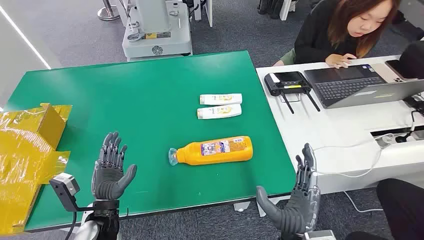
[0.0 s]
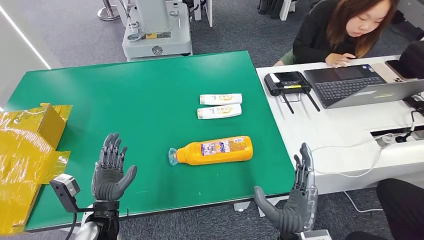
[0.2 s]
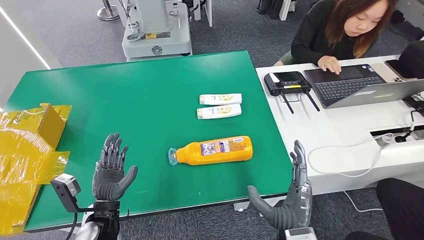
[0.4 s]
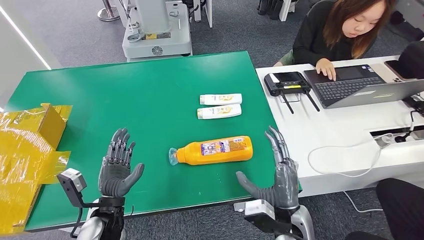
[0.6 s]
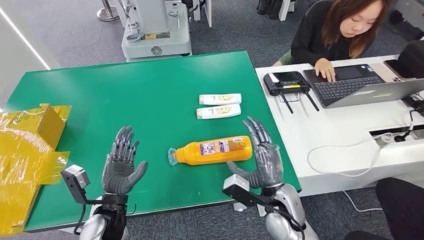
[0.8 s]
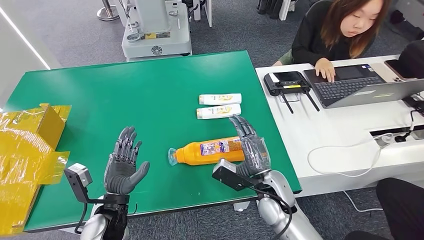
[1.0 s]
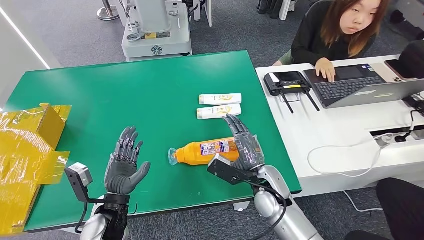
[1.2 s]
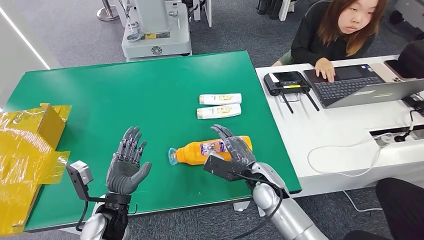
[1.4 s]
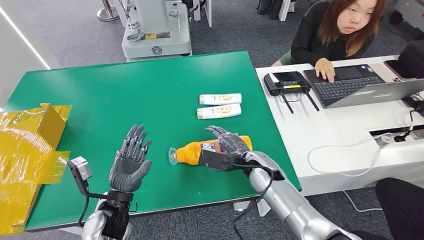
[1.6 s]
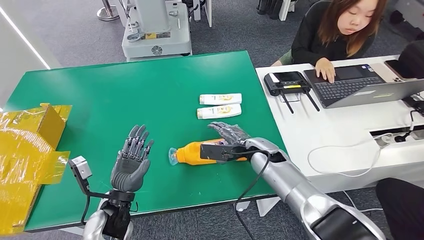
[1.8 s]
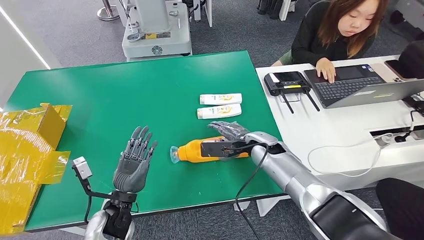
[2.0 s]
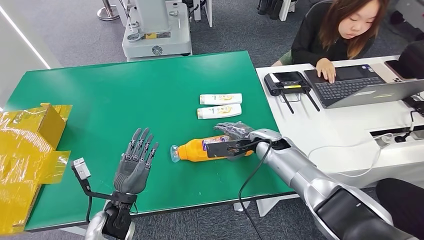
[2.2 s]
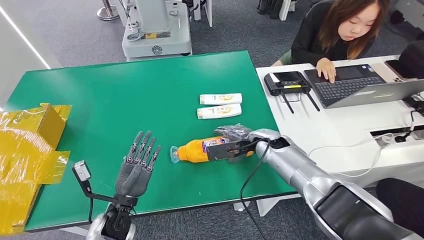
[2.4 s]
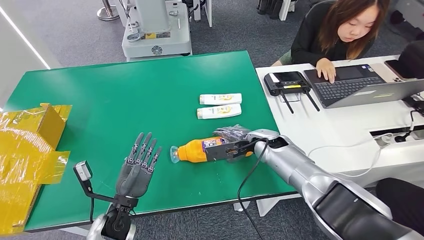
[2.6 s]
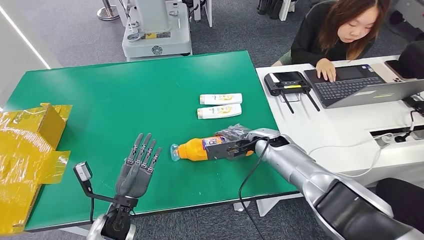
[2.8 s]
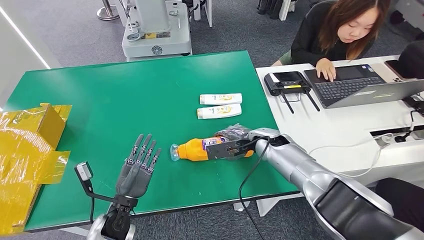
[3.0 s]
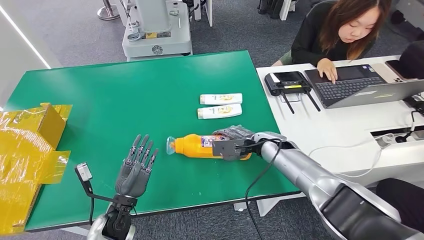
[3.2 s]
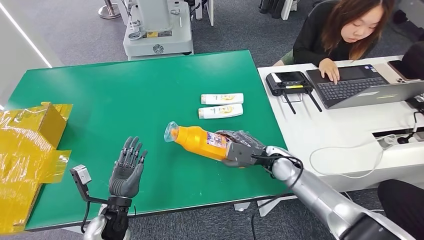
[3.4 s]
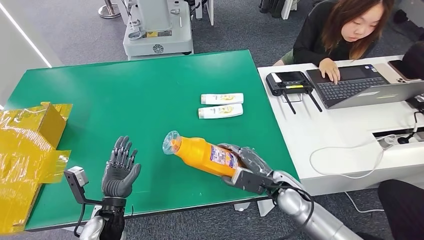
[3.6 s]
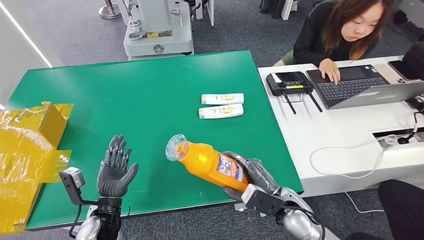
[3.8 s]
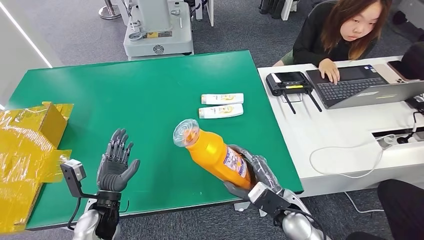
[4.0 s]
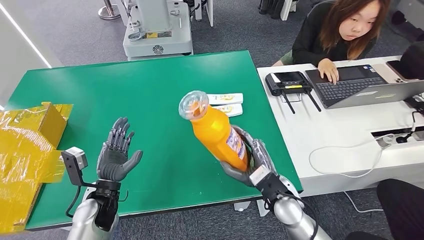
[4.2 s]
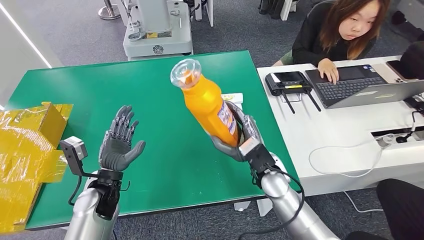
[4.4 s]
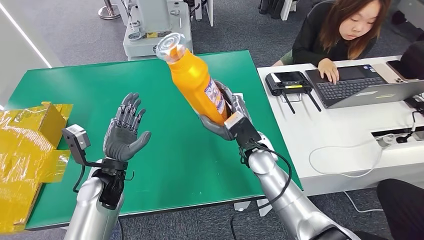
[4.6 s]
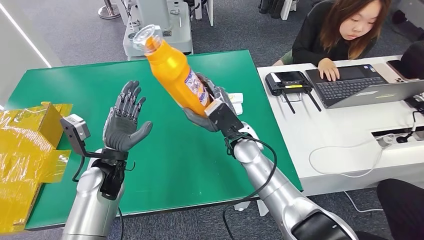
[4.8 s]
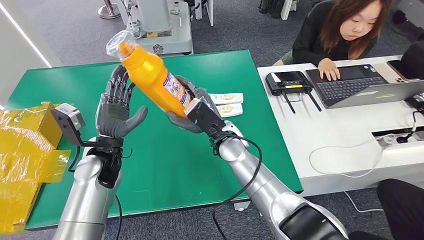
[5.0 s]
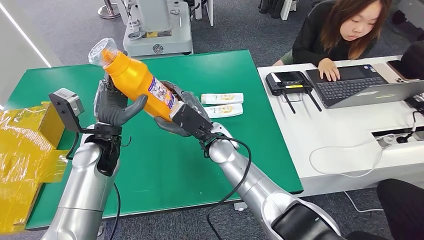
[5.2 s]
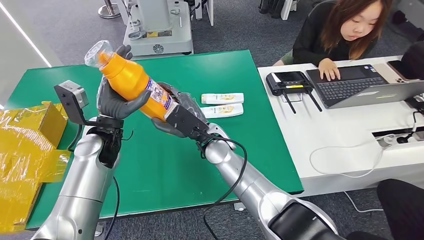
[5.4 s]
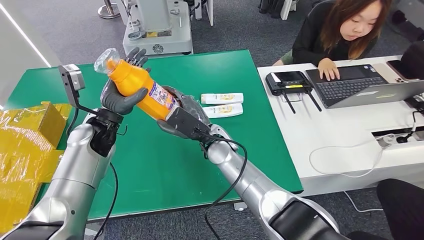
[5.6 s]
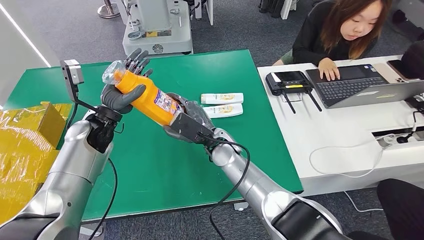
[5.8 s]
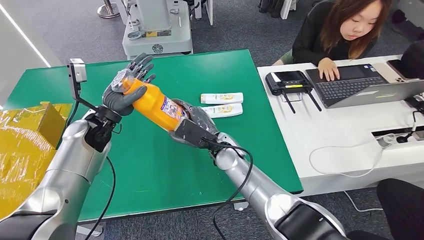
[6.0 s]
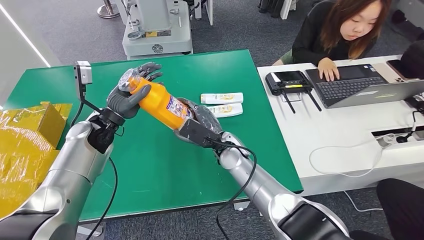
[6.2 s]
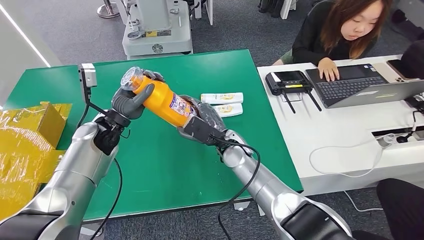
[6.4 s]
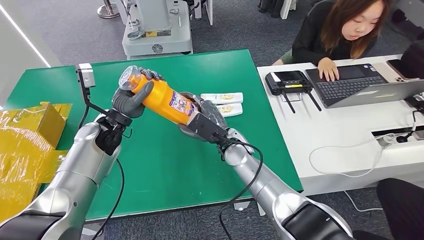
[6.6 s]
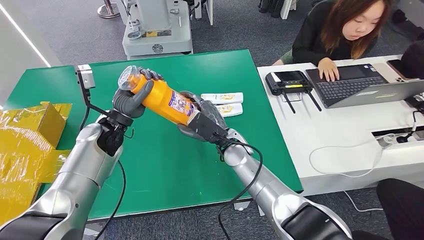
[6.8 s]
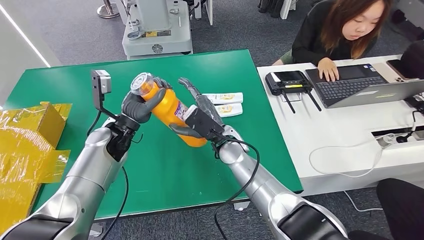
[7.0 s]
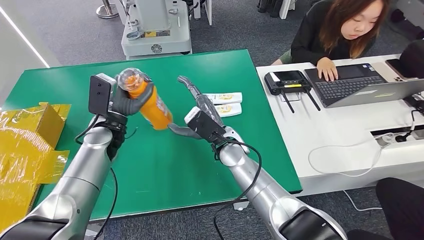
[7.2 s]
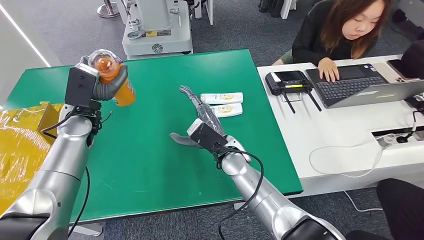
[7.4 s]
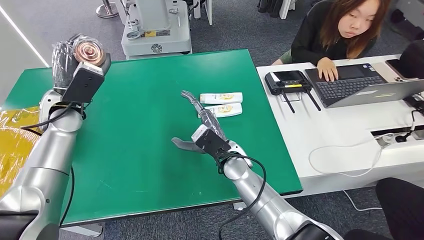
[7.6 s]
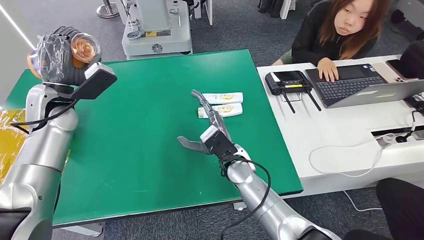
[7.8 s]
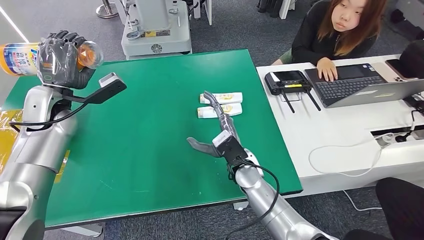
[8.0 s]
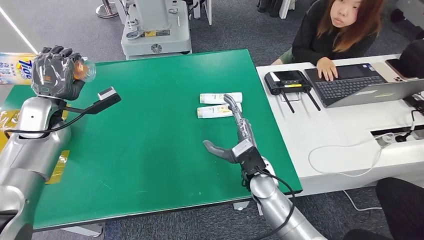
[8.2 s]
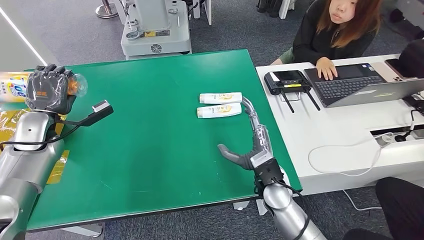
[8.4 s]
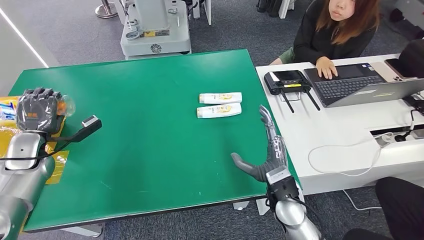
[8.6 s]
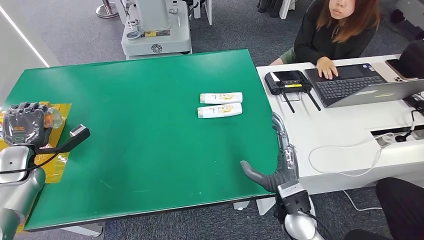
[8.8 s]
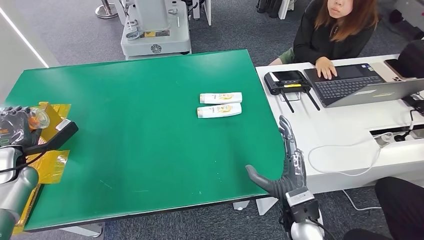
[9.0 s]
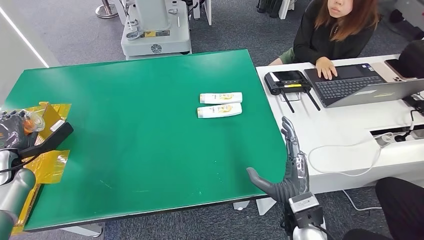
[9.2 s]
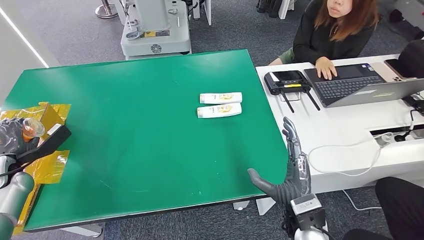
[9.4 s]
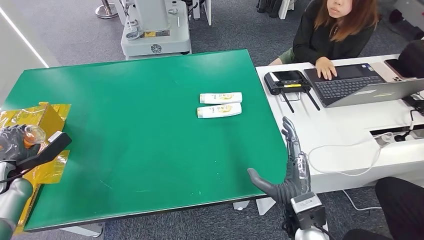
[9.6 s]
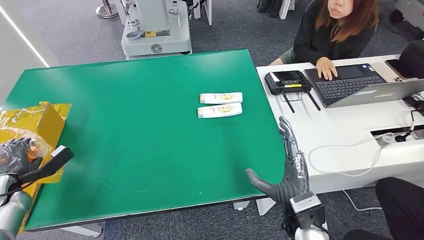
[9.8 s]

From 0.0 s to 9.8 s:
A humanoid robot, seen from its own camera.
Step, from 0.0 s to 3.8 s: Pick up the bottle from the table.
Step, from 4.0 s to 9.8 s: Turn the bottle to the front side.
From 1.4 s to 2.8 s: The right hand travels forward and to the right by some 15 cm.
From 5.6 s to 7.0 s: The hands stay close to where they were, moving slightly.
From 8.4 s to 9.8 s: The left hand goes approximately 20 cm to the left, downward and backward, while the right hand shifts some 10 cm backward.

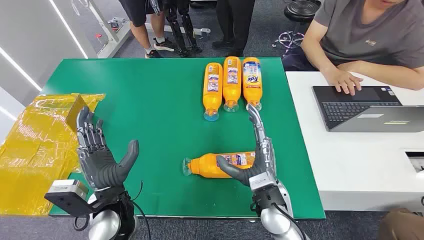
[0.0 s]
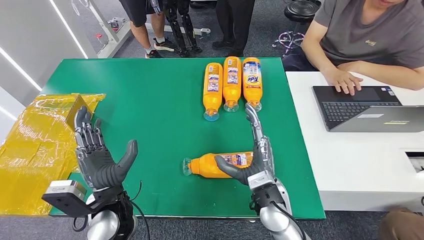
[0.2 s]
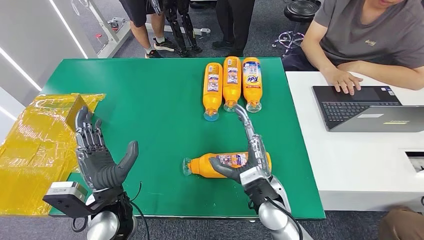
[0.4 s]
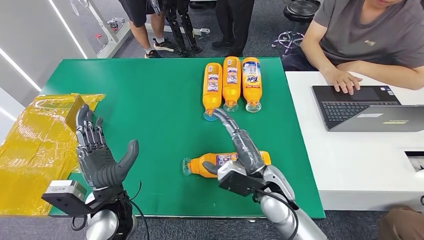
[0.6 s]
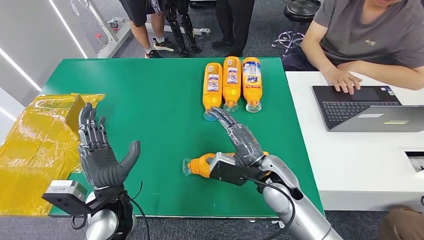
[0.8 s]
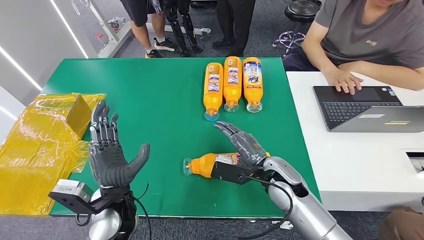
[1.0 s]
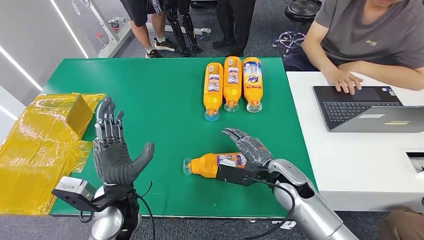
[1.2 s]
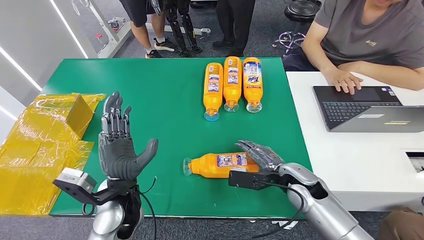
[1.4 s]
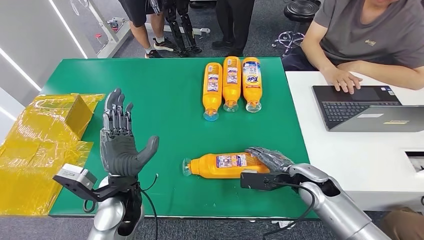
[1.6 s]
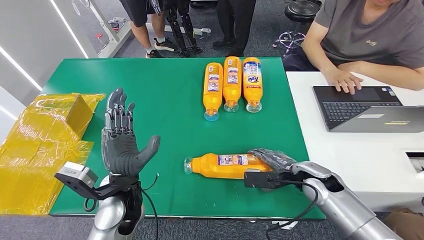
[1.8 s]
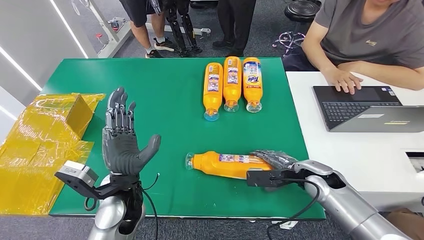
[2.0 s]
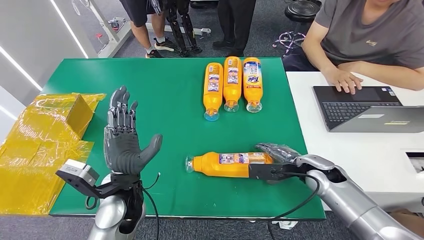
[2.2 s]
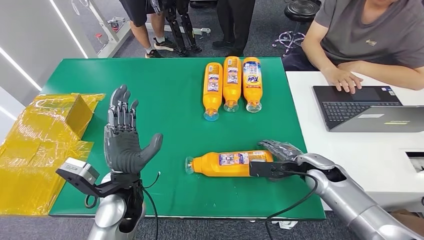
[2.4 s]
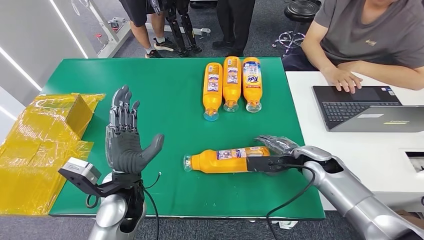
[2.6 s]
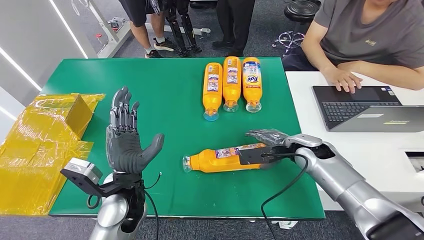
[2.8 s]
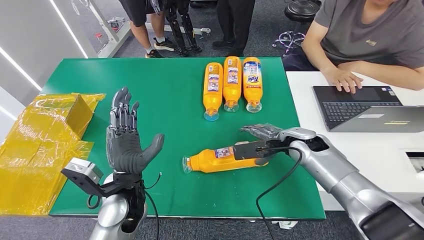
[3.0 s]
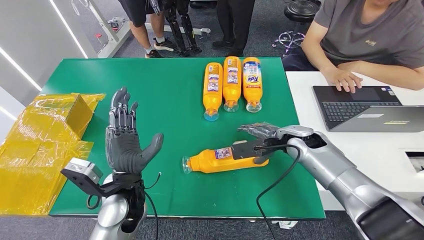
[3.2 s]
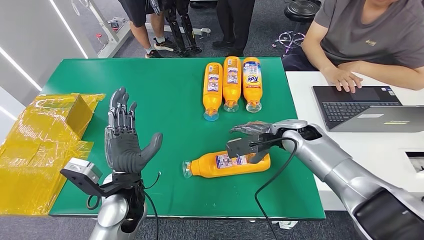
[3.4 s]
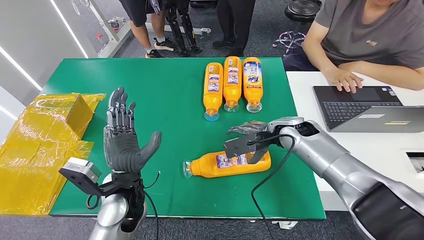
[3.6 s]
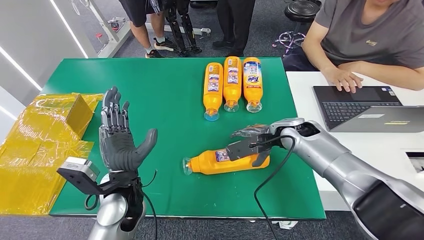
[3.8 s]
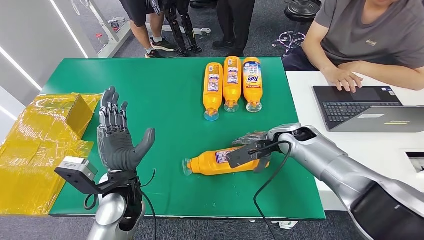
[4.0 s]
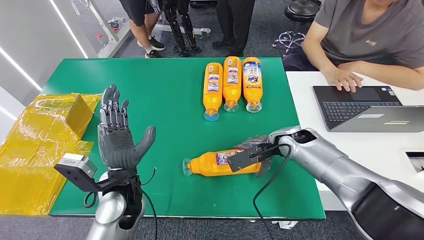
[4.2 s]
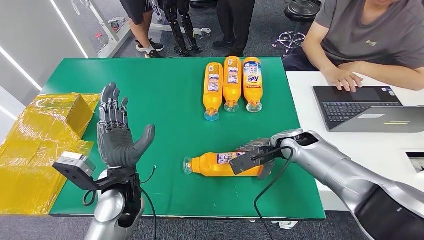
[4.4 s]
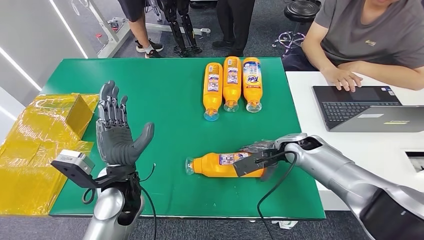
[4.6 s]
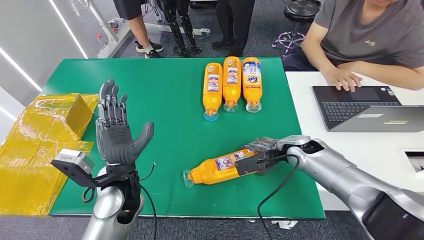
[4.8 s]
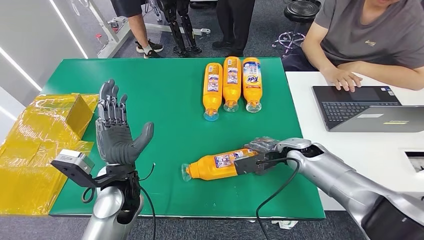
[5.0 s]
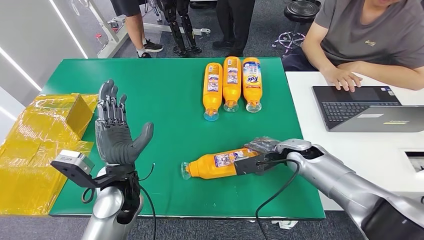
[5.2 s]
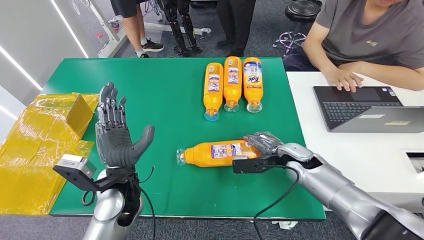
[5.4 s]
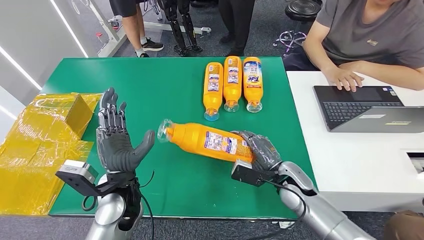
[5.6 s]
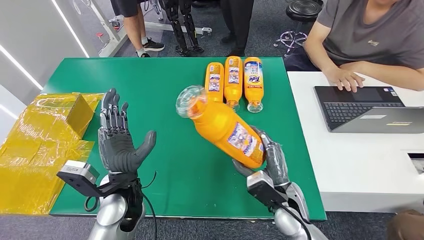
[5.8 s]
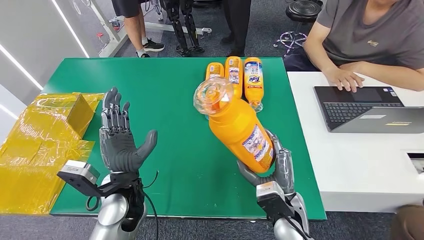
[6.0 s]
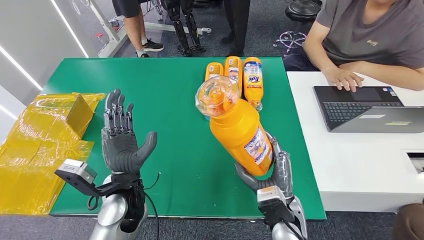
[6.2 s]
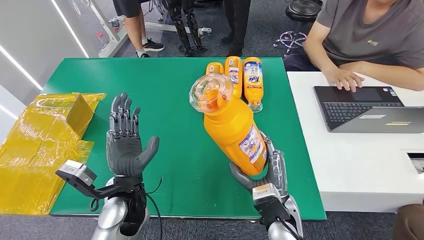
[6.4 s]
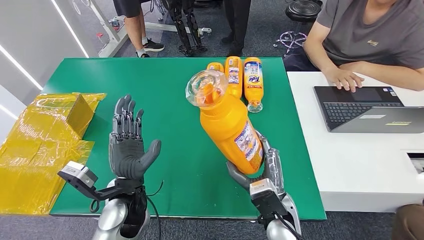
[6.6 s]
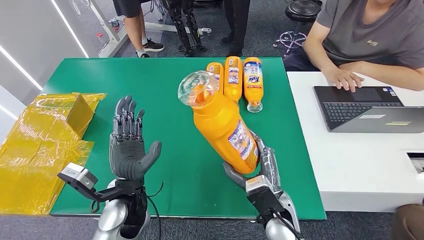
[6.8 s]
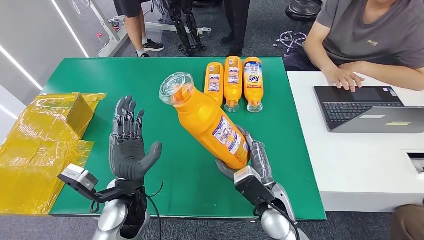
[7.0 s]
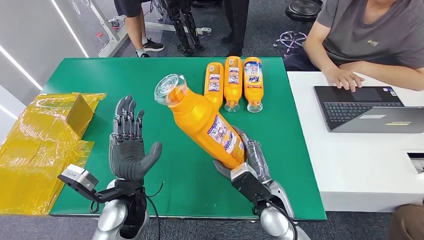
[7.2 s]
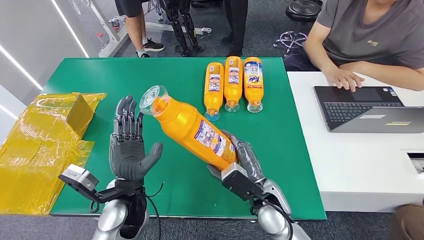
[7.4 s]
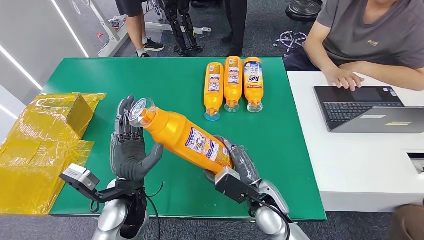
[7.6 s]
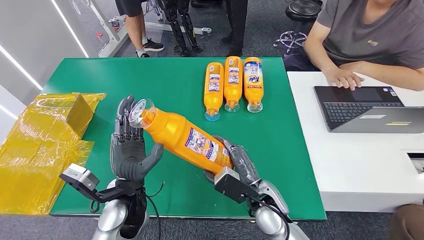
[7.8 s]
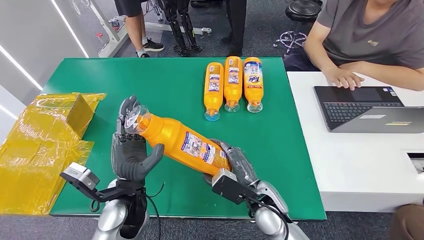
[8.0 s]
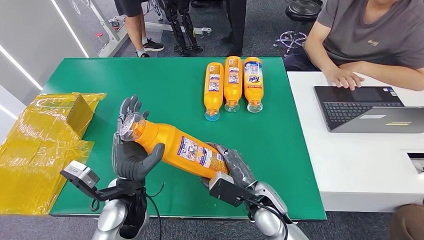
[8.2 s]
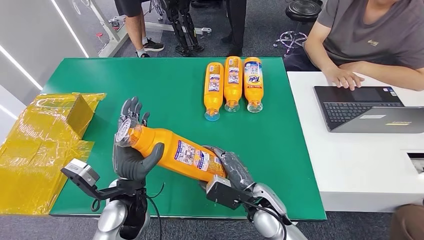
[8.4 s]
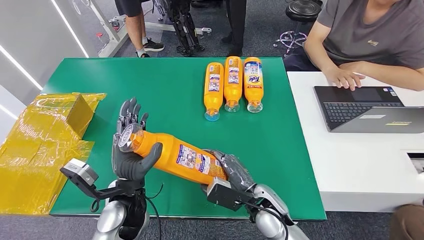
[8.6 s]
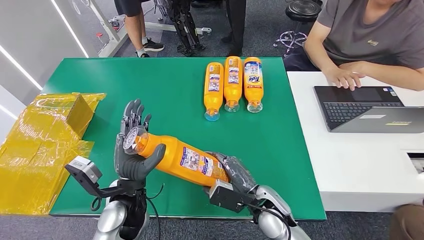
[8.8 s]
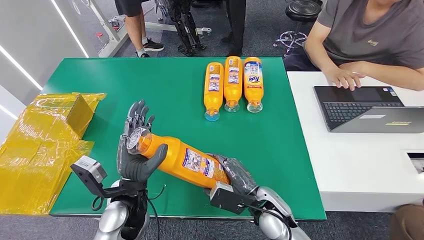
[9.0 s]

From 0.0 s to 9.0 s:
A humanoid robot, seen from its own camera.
Step, from 0.0 s to 6.8 s: Pick up the bottle from the table.
From 1.6 s to 3.0 s: The right hand travels forward and upward by approximately 10 cm.
From 3.0 s to 4.4 s: The hands stay close to where they were, moving slightly.
From 6.0 s to 7.6 s: The right hand changes place by approximately 5 cm.
From 7.6 s to 9.0 s: The hands make only small movements.
